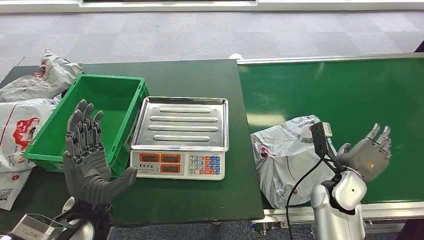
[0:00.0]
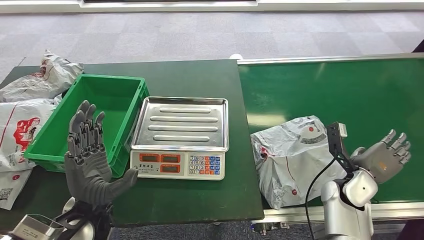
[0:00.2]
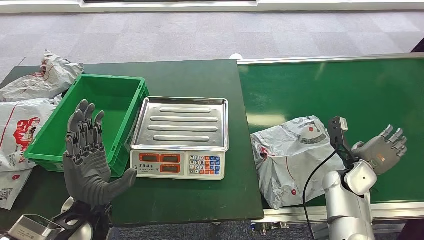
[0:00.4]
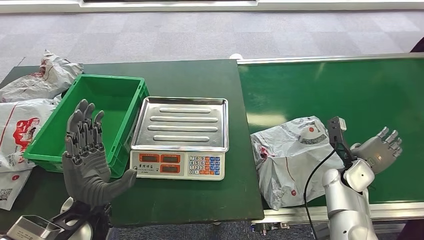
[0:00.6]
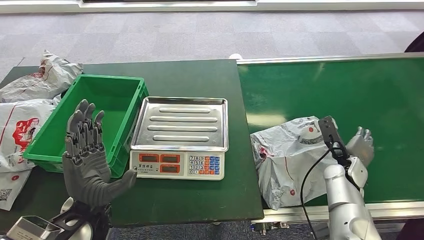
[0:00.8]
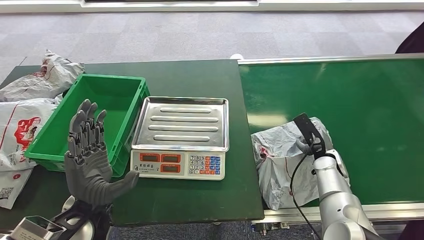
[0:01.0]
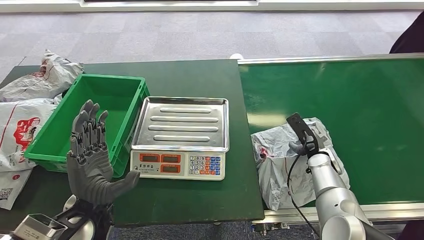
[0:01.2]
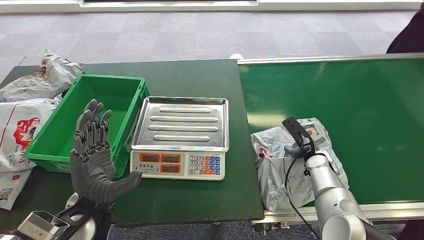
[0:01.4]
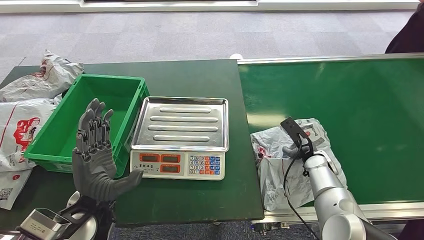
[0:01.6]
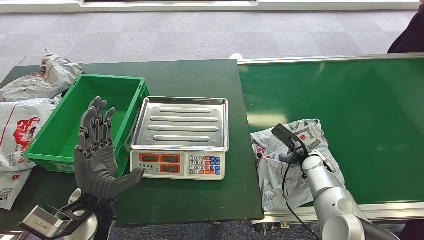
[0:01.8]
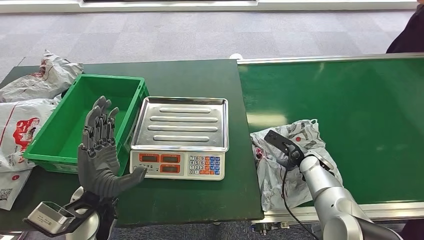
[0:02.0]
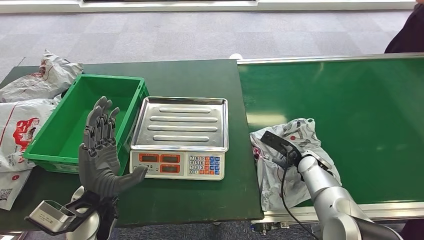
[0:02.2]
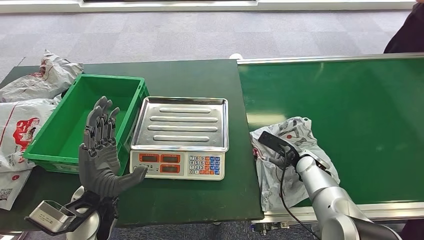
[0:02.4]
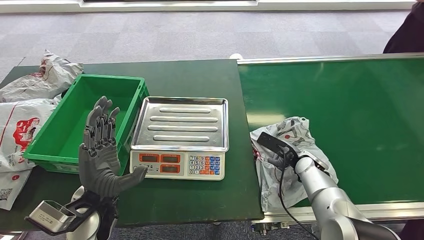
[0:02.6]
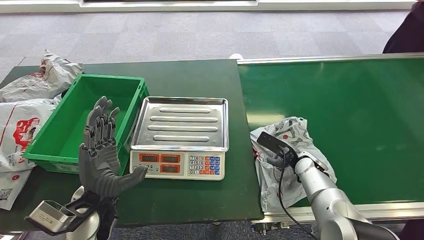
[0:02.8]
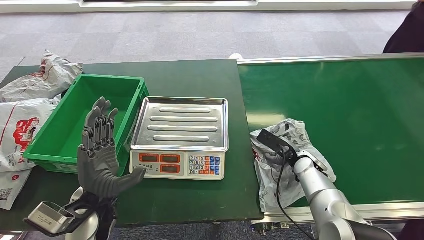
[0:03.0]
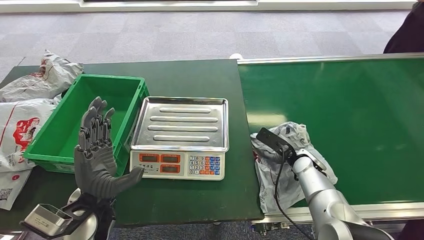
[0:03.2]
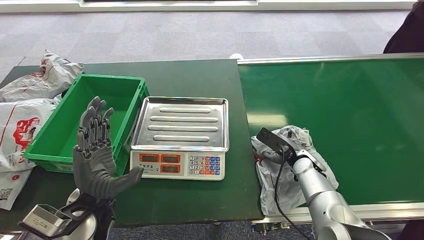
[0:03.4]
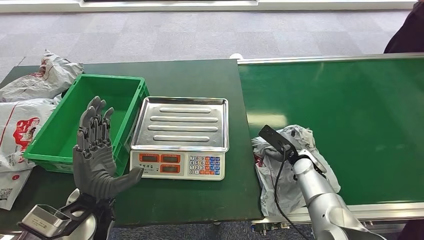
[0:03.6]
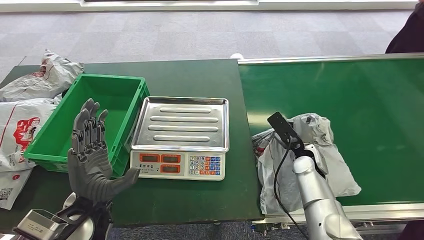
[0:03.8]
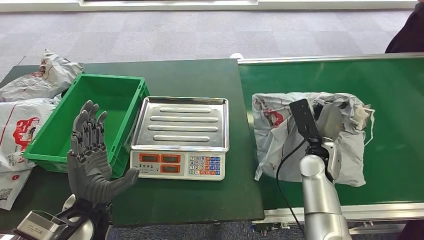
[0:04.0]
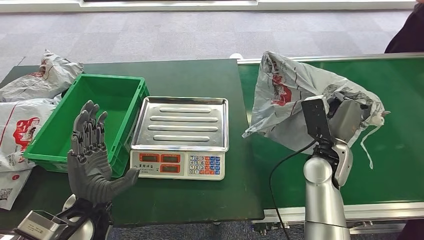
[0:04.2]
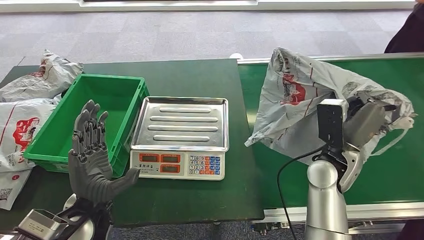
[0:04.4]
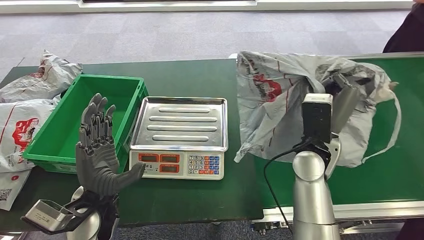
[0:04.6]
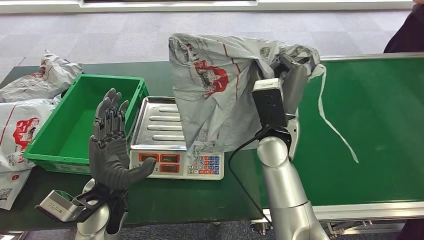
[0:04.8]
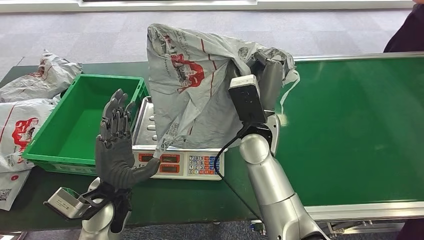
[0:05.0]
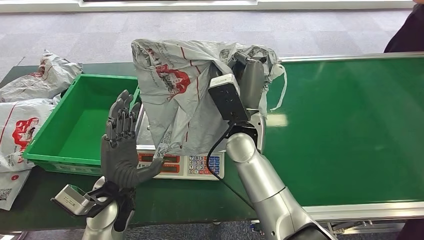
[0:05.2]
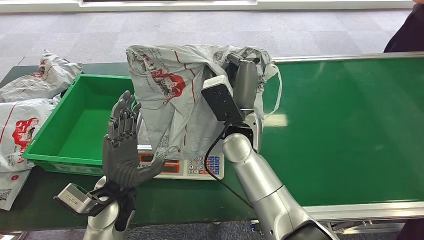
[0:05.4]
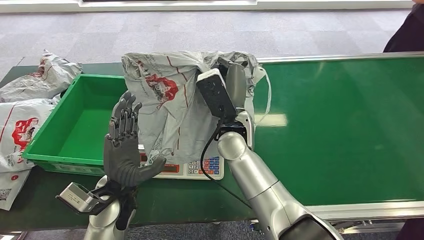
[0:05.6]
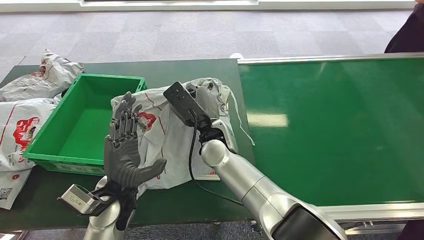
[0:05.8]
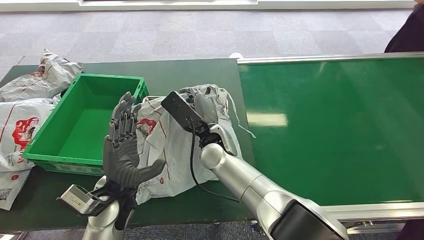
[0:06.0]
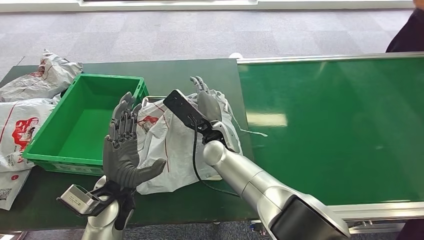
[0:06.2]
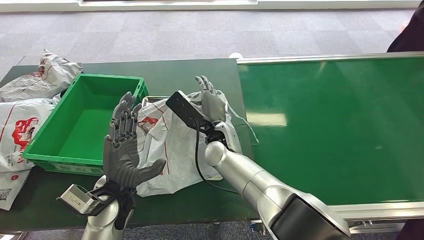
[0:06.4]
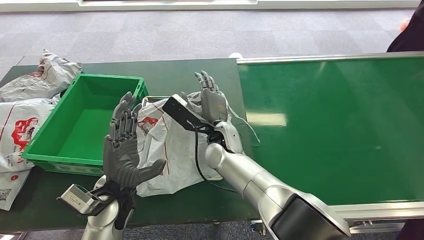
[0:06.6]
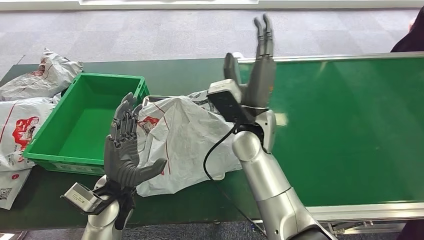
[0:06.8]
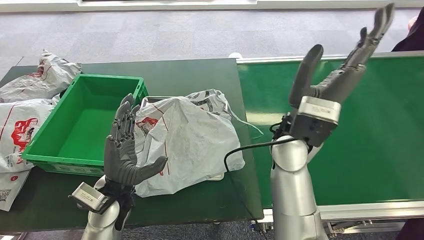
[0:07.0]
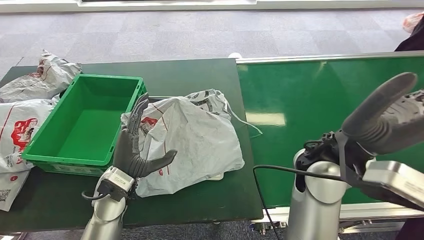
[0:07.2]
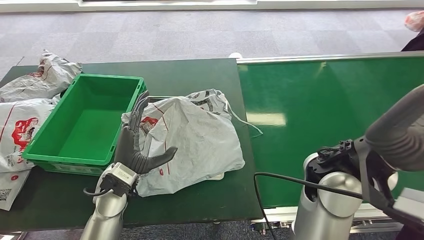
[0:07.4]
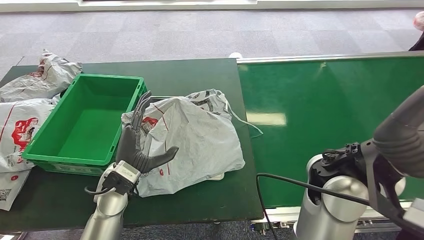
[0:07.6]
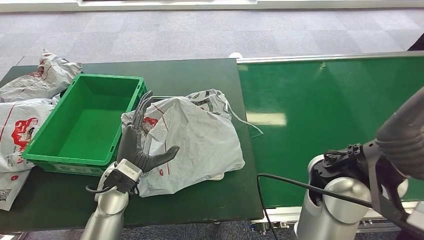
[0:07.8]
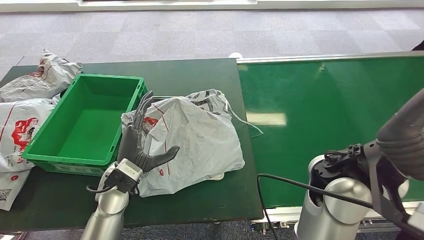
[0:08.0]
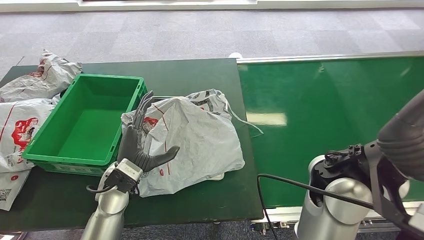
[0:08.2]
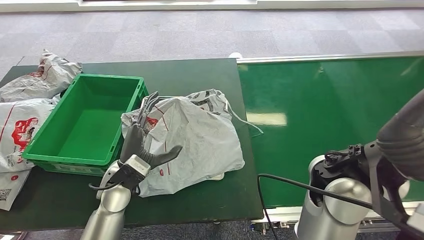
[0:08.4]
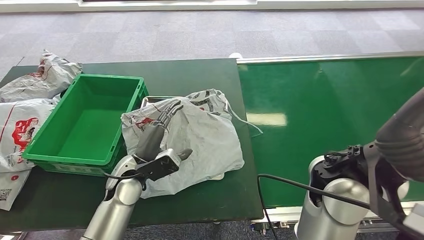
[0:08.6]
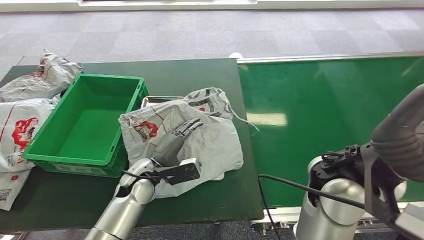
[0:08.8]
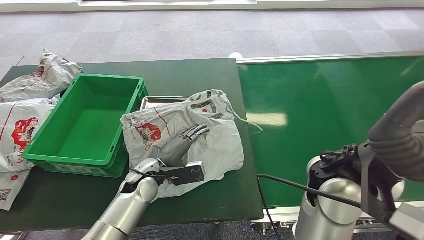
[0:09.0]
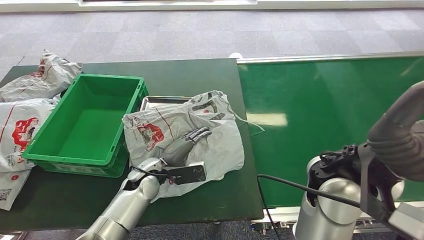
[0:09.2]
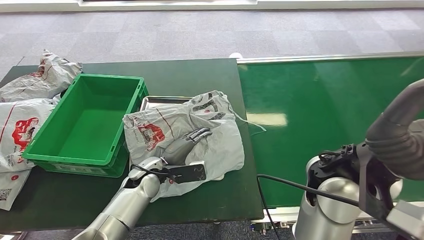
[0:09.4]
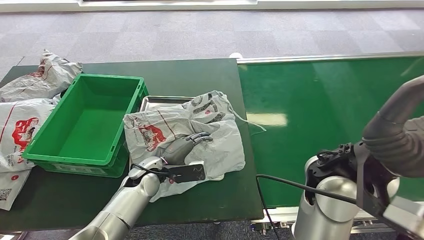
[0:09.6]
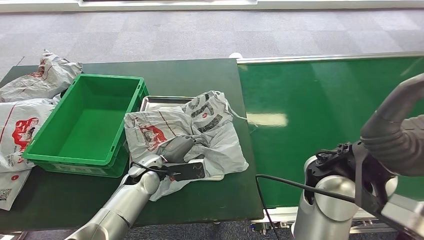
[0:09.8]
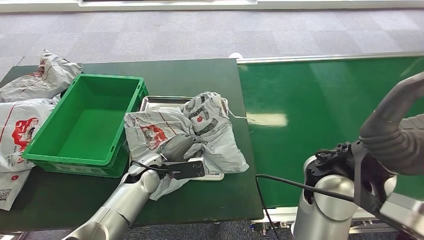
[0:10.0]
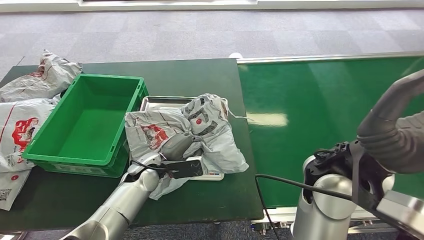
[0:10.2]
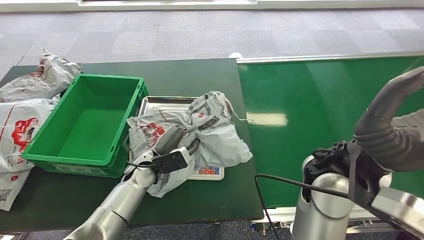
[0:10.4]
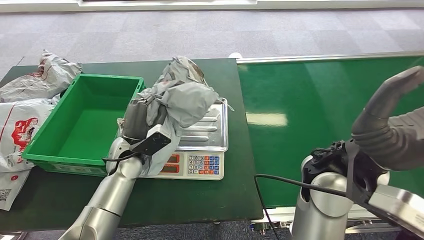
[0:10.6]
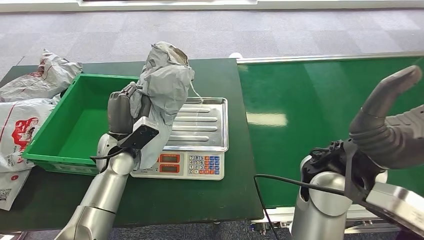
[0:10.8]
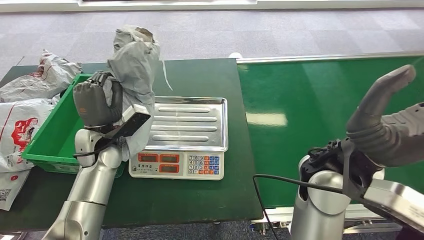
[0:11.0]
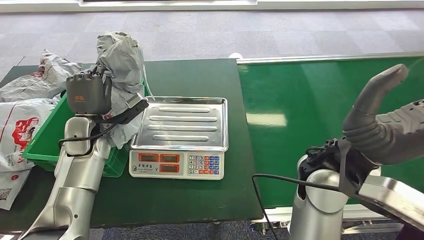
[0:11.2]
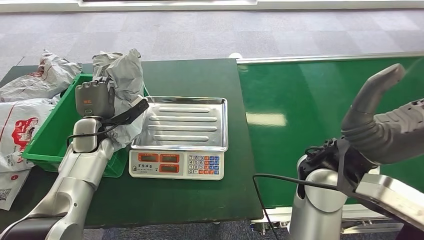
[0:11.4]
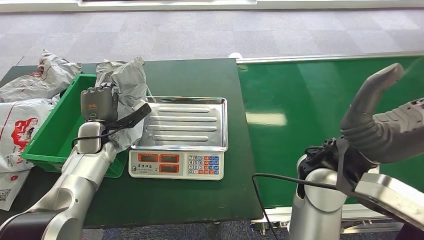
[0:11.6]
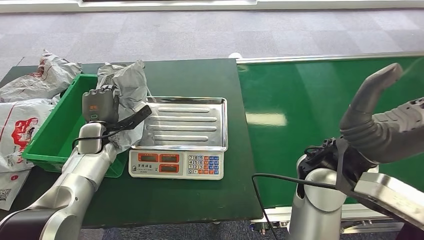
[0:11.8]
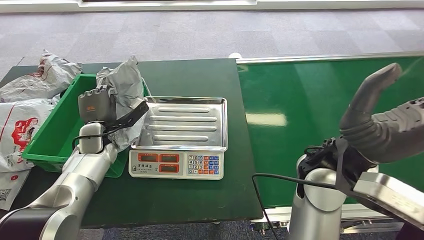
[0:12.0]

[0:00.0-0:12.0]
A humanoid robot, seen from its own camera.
Task of the whole recording: Weigh the package on the weighing device and place it in the left basket.
Step, 0:00.0 to 0:05.0: Pick up the package from the conveyor belt.
Step, 0:05.2 to 0:07.2: Place the package onto the inbound machine.
Step, 0:07.4 to 0:11.0: Pick up the package from the inbound machine.
0:07.6 to 0:09.0: The left hand goes roughly 5 cm downward.
0:09.0 to 0:10.4: The hands stay close to where they were, moving slightly.

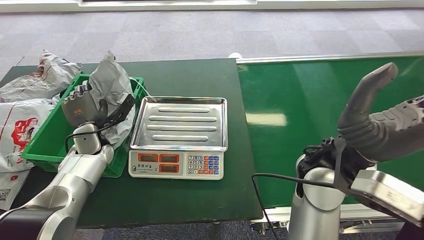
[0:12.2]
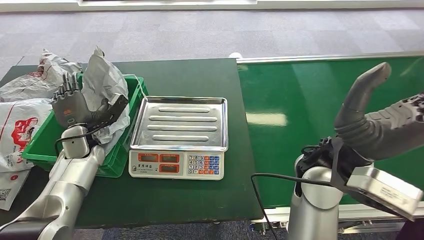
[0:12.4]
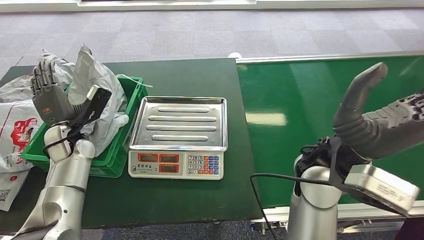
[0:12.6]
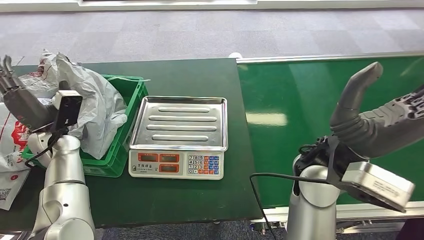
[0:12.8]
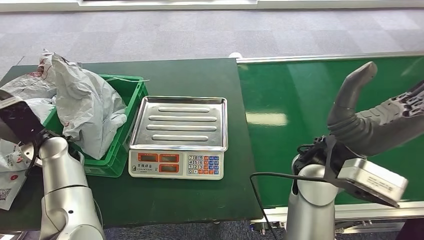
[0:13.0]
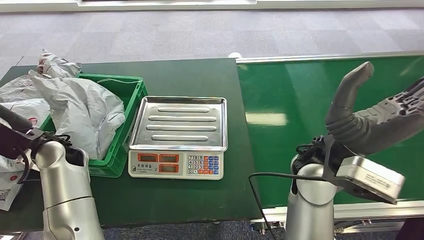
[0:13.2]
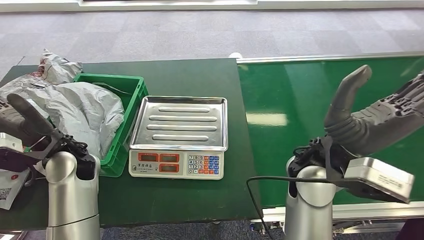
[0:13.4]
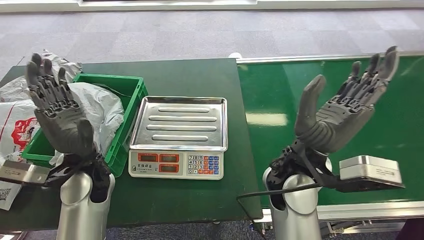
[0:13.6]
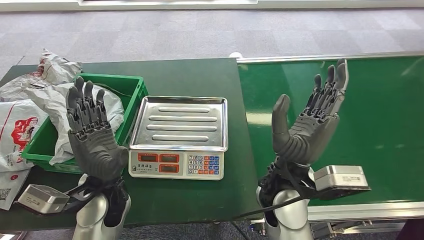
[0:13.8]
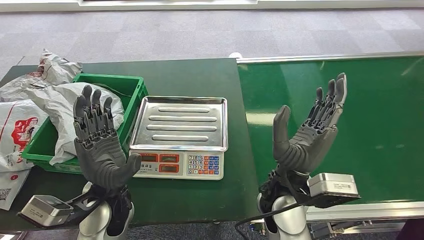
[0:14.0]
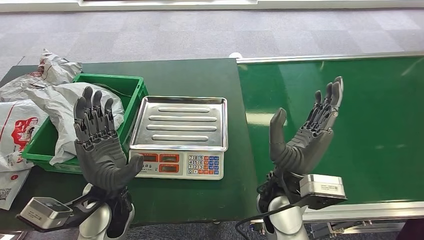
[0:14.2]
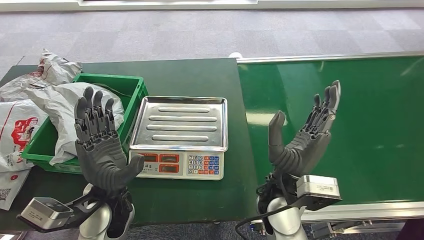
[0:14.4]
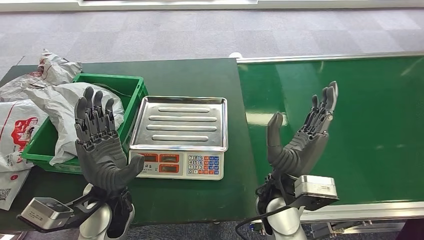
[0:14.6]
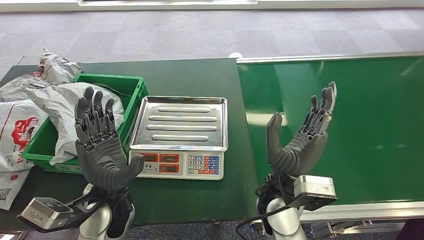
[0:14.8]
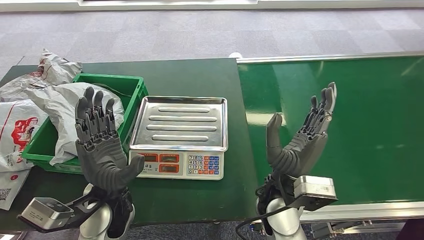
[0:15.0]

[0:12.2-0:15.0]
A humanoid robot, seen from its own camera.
Task of the whole recording: Weigh the package on the weighing device and place it in the left basket.
Step, 0:12.2 to 0:15.0: Place the package into the parcel locker.
